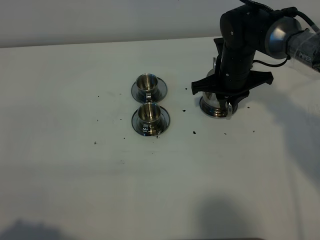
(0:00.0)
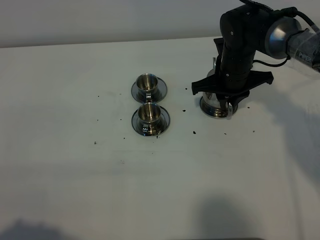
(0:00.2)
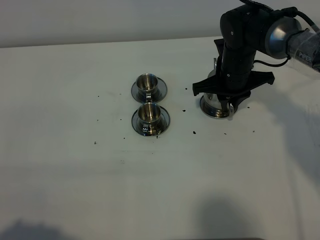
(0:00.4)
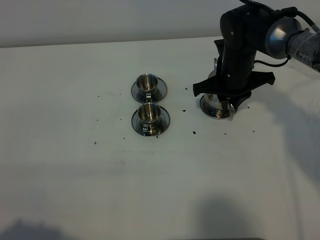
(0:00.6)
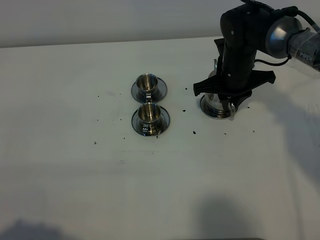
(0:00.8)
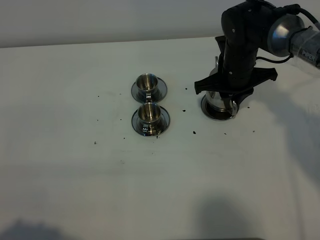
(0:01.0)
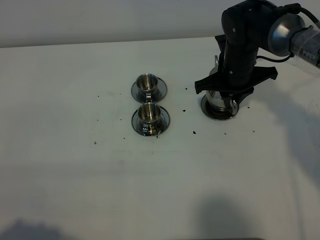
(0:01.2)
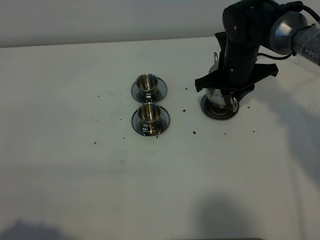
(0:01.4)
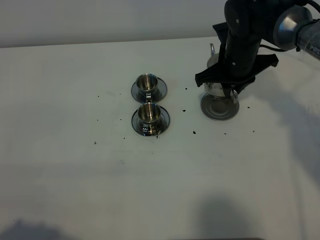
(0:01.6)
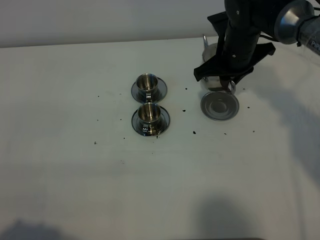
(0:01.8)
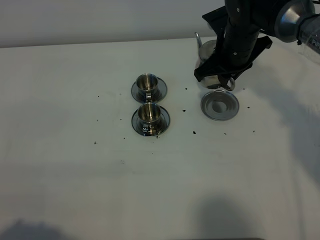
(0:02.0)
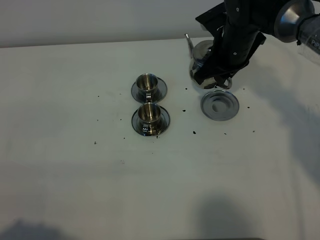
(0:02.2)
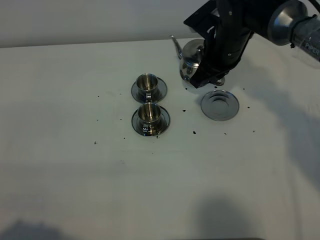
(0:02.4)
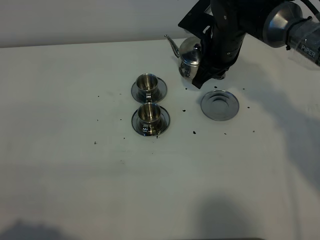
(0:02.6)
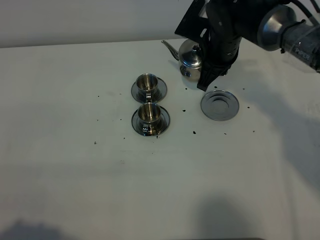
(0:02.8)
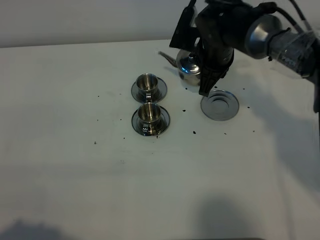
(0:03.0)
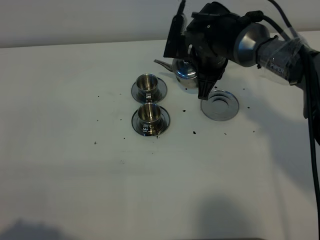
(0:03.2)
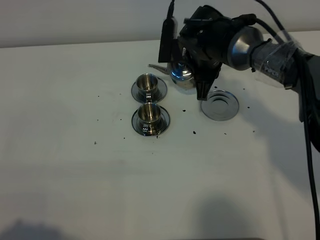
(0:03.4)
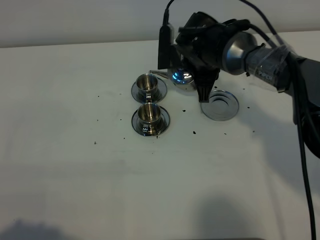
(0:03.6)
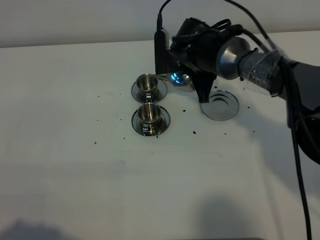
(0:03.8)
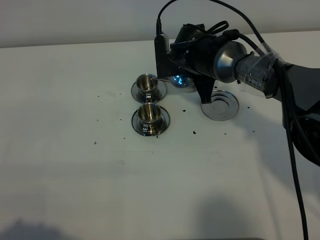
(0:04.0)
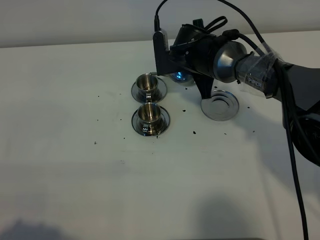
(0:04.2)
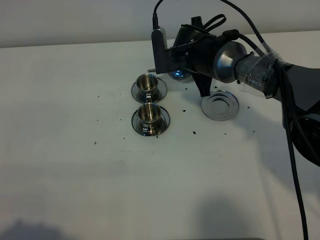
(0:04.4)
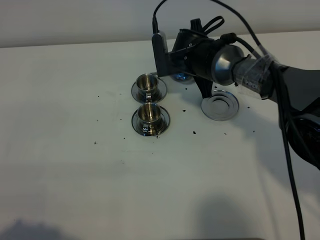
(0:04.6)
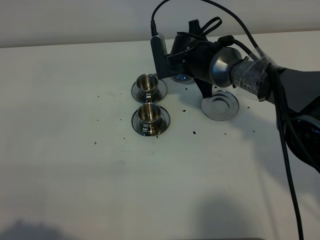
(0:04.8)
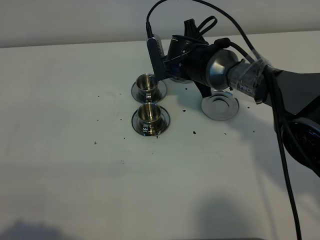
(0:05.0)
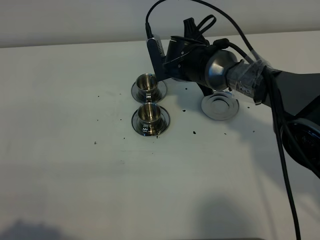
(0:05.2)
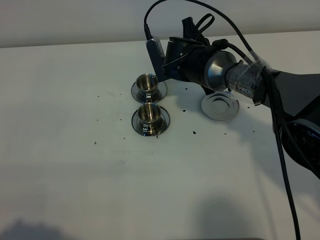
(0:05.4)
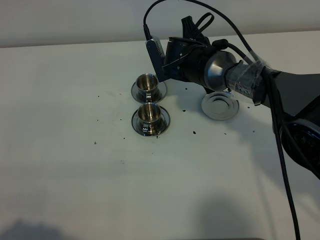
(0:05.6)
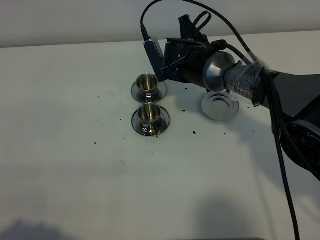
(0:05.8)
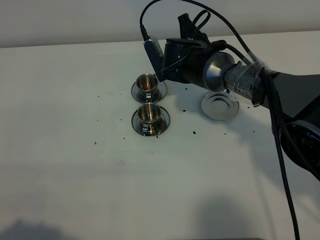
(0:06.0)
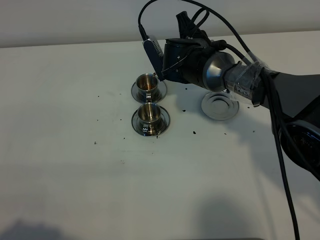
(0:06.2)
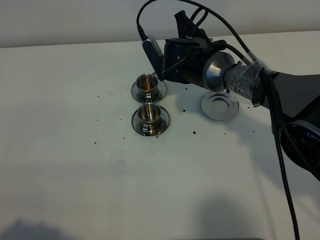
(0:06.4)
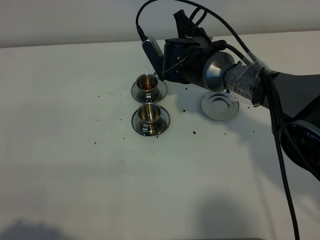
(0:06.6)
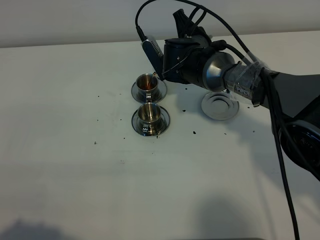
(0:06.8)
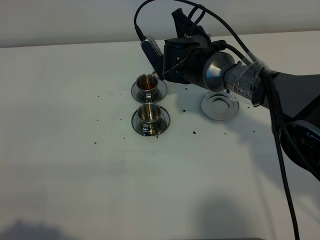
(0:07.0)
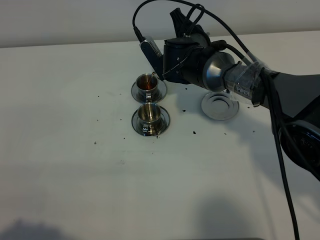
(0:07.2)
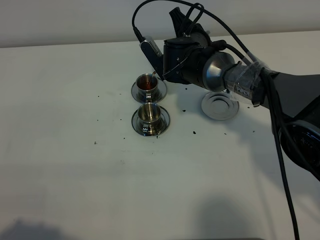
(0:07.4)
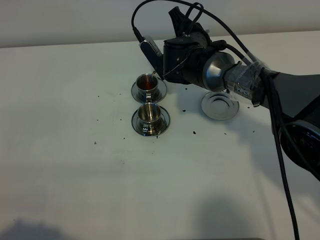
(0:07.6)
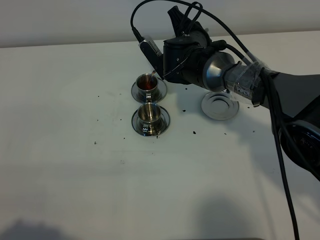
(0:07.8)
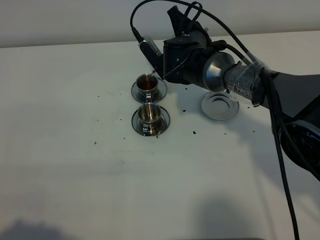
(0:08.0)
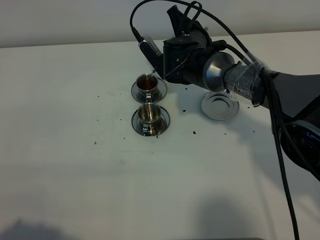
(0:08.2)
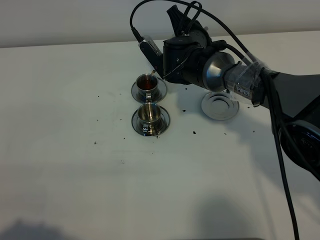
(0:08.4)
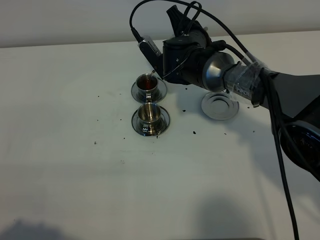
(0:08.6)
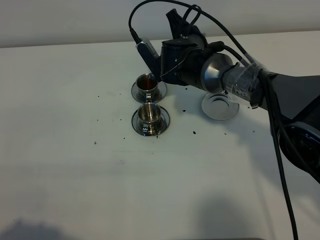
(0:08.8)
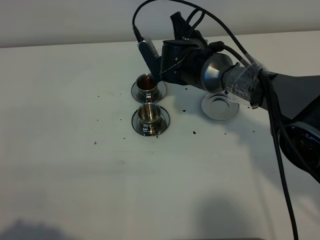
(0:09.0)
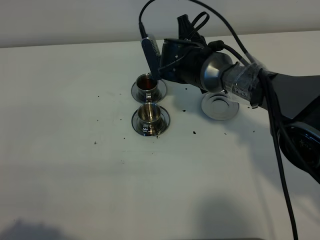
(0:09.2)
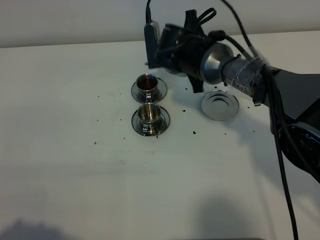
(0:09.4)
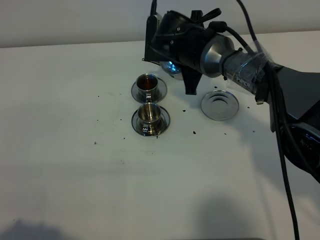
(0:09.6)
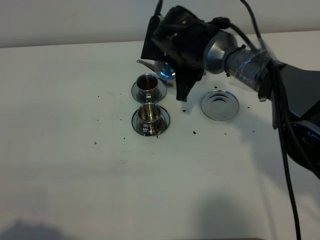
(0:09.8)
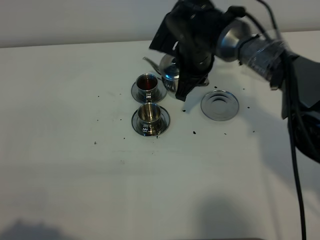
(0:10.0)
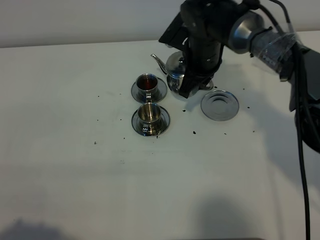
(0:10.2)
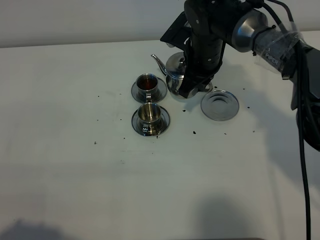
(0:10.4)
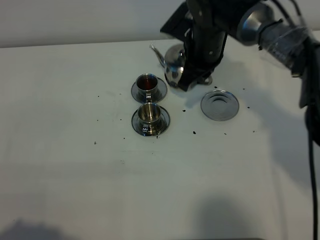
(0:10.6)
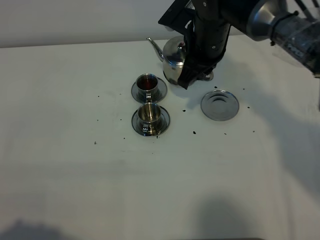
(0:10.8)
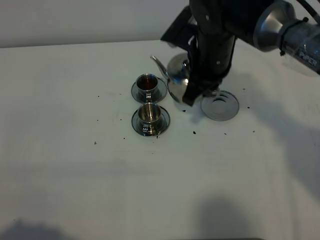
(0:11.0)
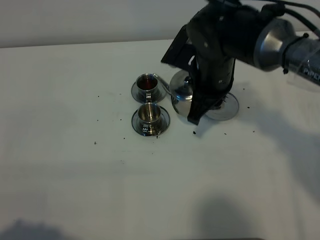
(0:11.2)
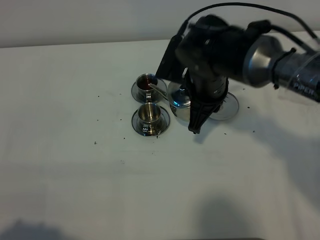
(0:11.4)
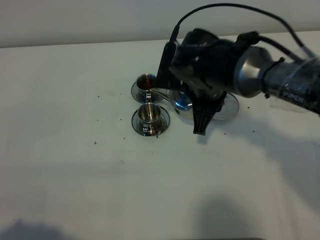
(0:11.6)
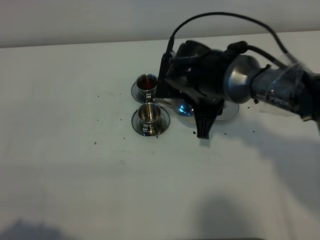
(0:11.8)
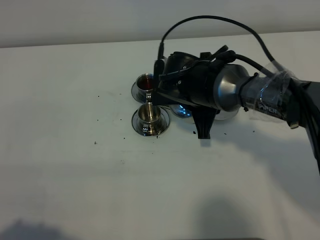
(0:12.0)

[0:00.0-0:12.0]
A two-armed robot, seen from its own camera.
Task of the whole recording: grasp the stainless steel teapot and pour the tea into the two stainless steel teacups one by one, put the stainless steel teapot back in its original place.
Step, 0:01.4 to 0:09.2: Pour tea into the teacup with the right gripper.
0:00.0 to 0:01.6: The grippers make only small movements.
0:04.4 to 0:06.0: There are only small adjustments of the grippers.
0:06.0 to 0:09.0: The grippers make only small movements.
0:10.4 to 0:12.0: The right gripper goes about 10 cm backward.

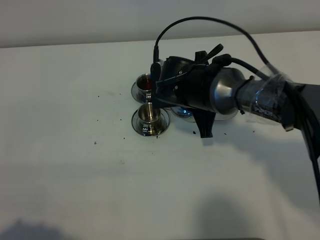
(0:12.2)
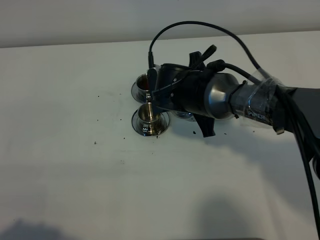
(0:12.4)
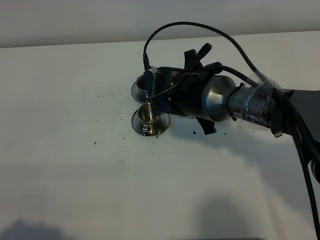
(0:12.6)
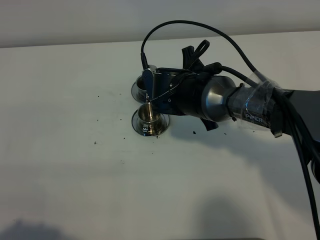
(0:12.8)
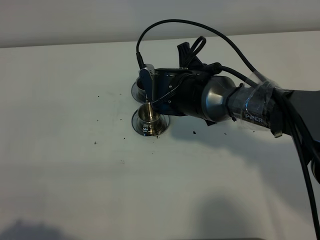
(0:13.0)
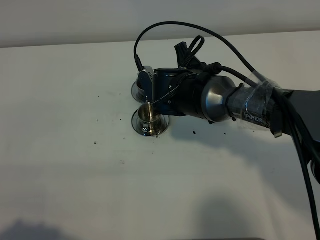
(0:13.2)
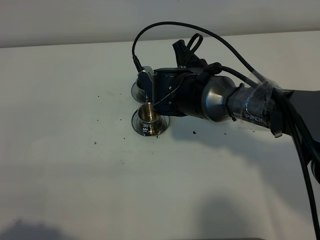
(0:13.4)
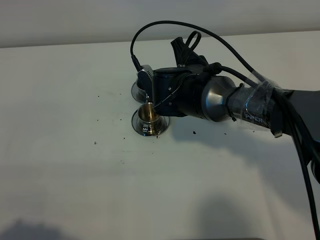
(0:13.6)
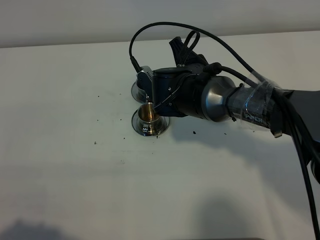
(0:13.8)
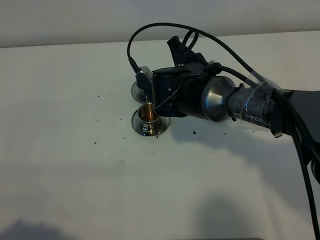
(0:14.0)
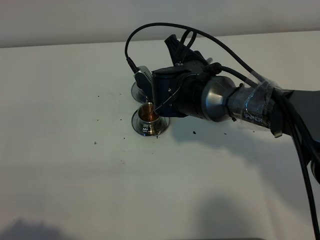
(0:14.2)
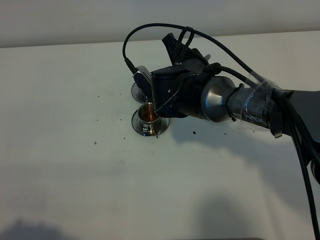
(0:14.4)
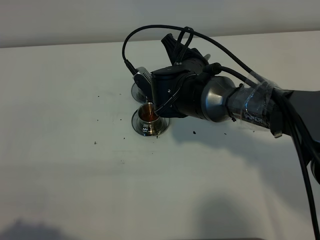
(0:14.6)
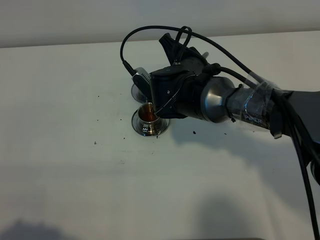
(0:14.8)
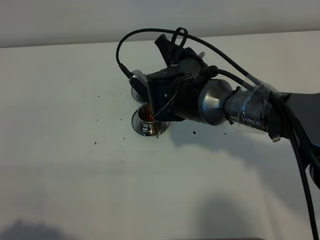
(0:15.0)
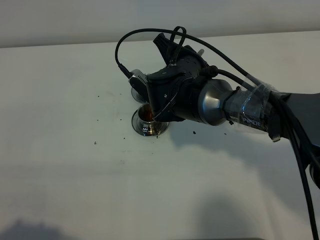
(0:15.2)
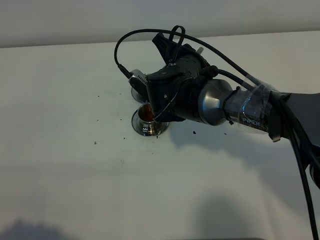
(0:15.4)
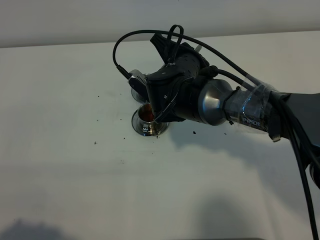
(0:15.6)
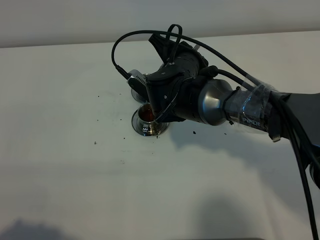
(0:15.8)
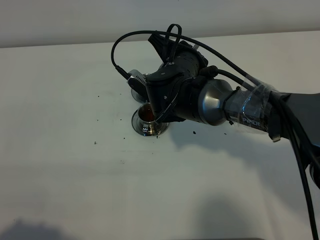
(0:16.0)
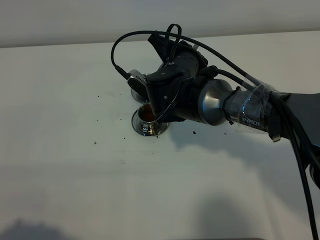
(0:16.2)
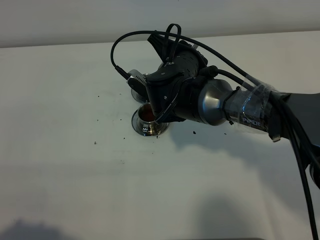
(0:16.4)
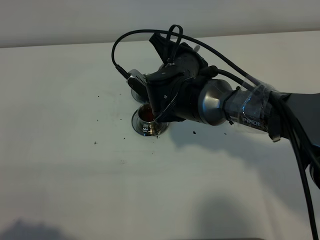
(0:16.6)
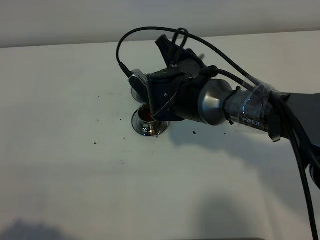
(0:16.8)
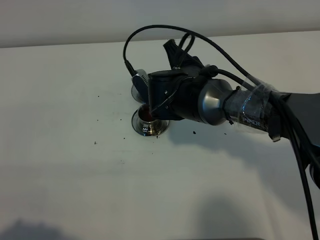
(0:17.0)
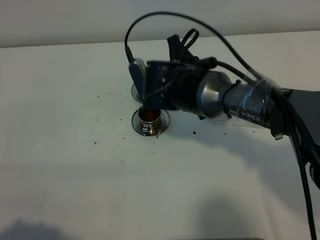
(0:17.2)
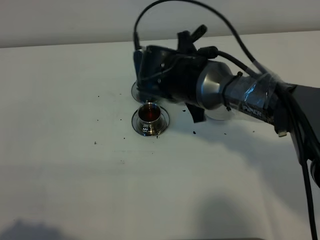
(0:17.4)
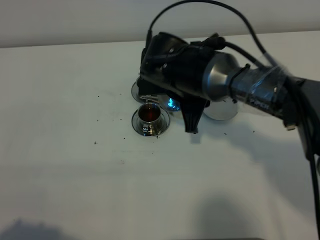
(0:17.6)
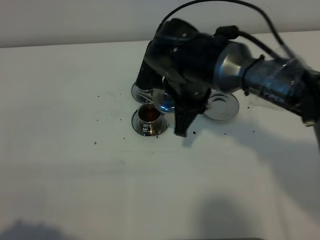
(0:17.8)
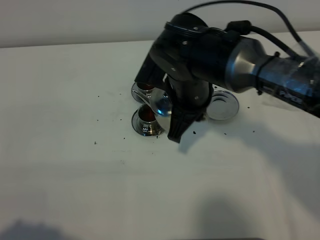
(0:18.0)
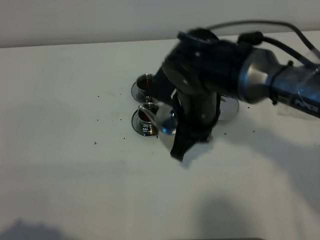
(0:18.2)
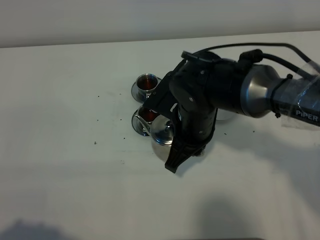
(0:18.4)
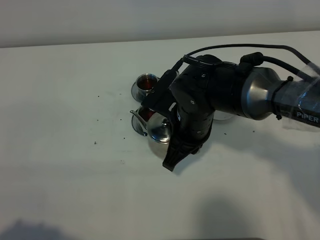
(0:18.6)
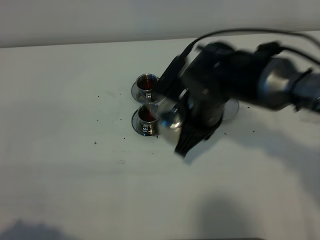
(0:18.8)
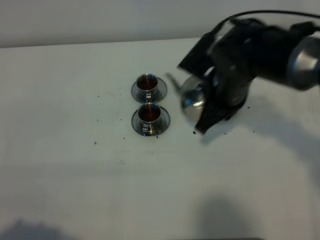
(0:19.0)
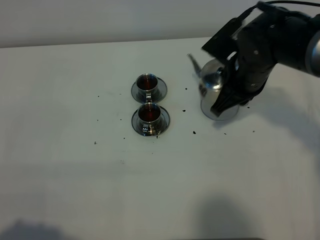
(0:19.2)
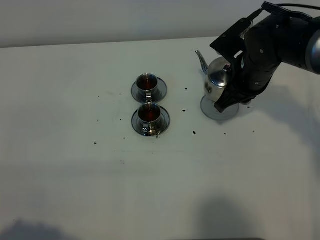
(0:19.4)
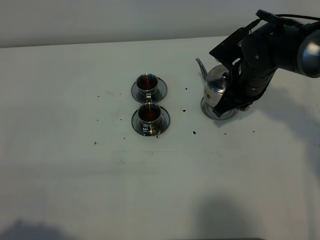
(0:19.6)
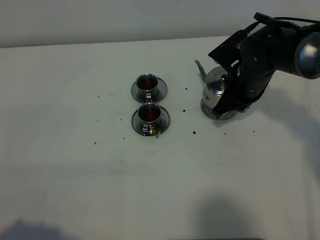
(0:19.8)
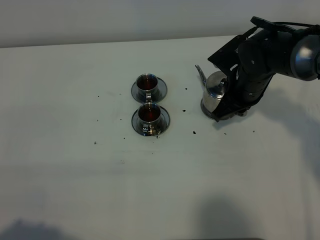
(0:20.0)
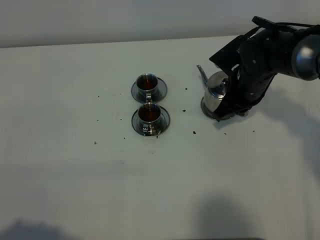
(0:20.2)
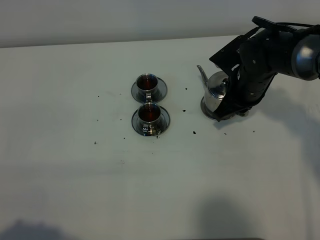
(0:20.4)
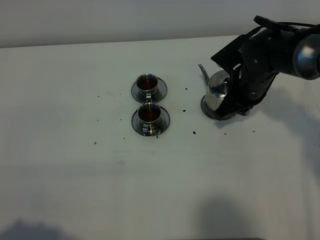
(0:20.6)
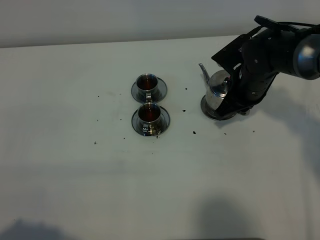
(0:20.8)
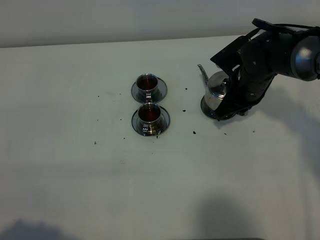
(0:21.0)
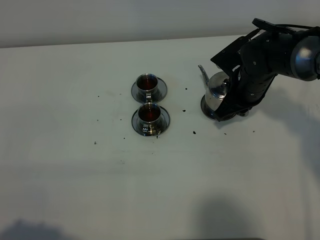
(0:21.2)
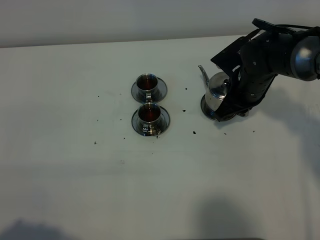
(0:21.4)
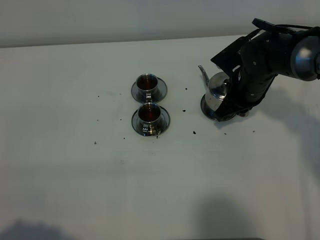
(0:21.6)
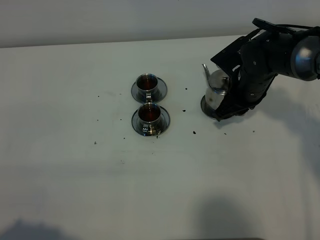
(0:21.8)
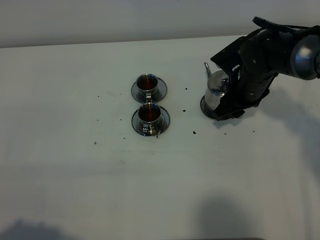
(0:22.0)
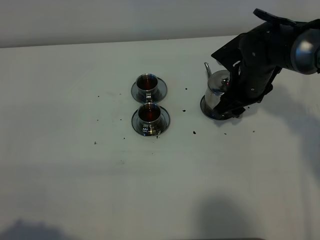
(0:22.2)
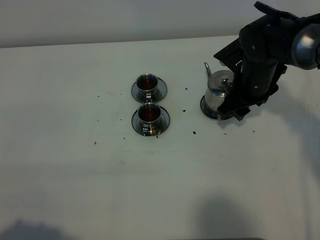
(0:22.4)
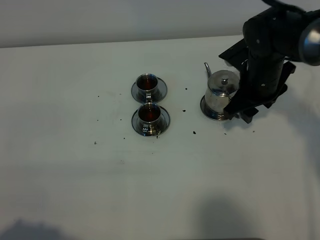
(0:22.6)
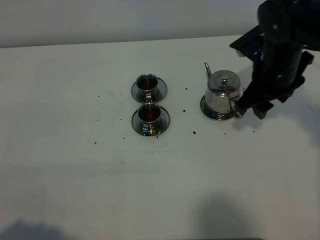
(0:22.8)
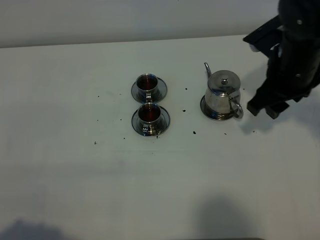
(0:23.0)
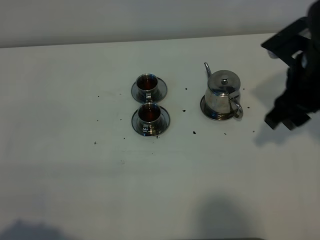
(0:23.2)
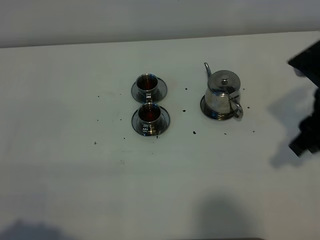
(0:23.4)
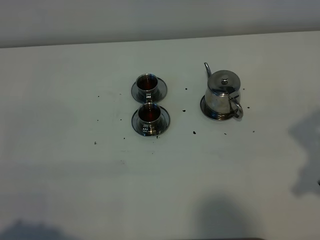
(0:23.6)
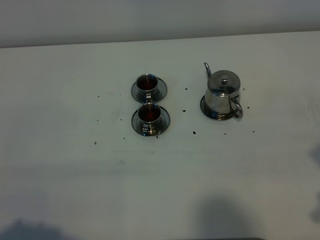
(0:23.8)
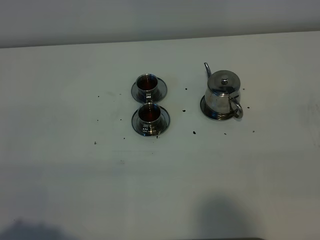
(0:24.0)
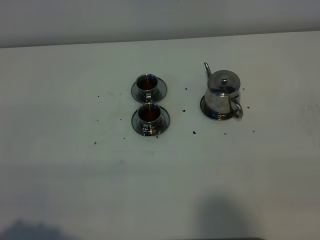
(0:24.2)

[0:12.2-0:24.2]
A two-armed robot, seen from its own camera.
Task of the whole recording: grasp the stainless steel teapot and pour the tea into the two stainless steel teacups one by one, put the stainless steel teapot back in its original place.
Step, 0:12.2 to 0:17.2: Pour tea into the teacup with the right gripper.
0:13.8 to 0:16.6: There are only small adjustments of the grippers.
0:16.6 to 0:18.2: The right gripper travels backward by roughly 5 cm.
0:18.2 to 0:19.8: The right gripper shifts approximately 15 cm to the right and forward.
0:19.8 to 0:21.2: There are only small adjustments of the grippers.
0:21.2 to 0:22.6: The right gripper opens its fingers.
0:22.6 to 0:24.2: The right gripper goes some 35 cm backward and to the right.
